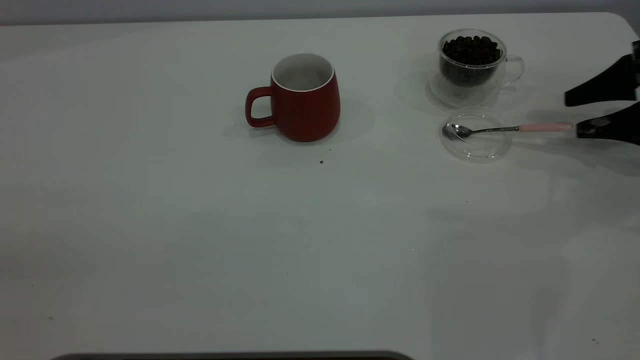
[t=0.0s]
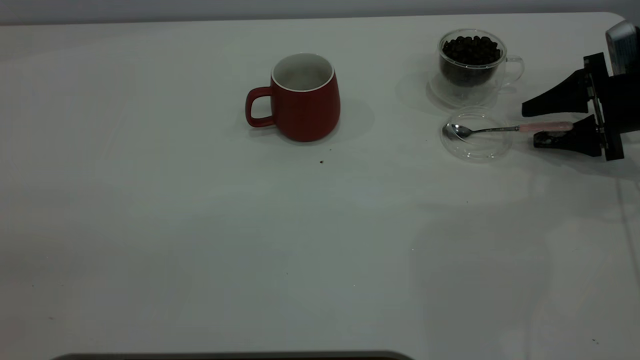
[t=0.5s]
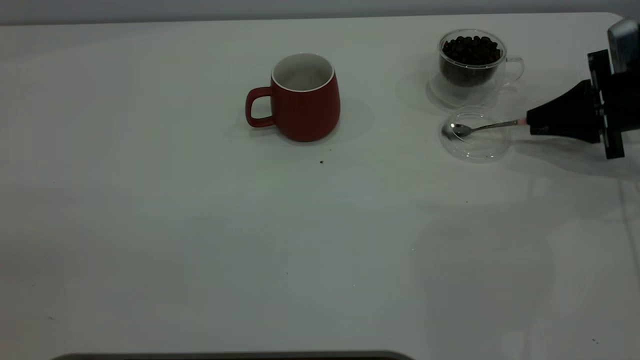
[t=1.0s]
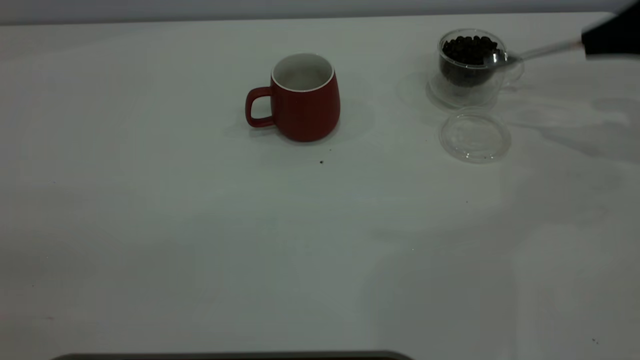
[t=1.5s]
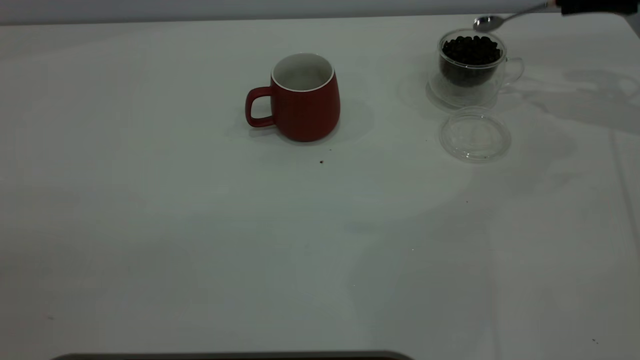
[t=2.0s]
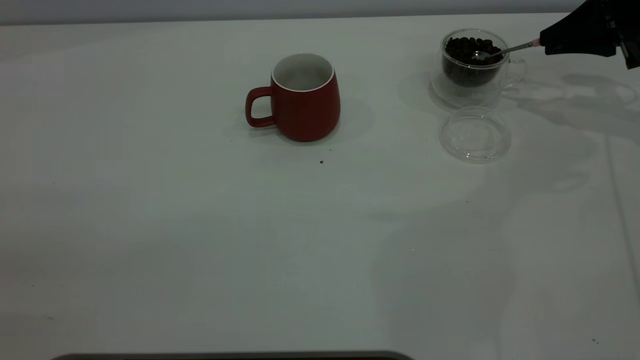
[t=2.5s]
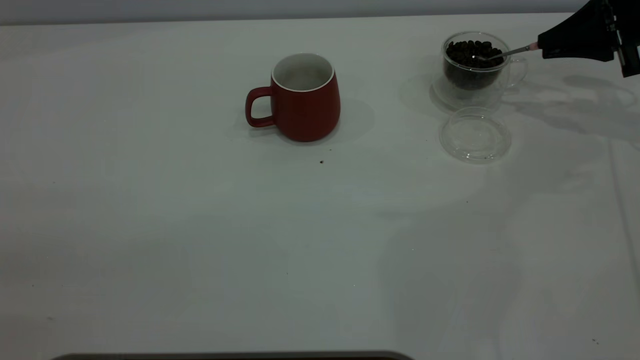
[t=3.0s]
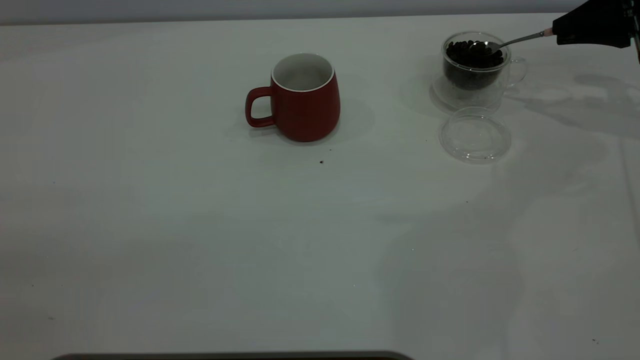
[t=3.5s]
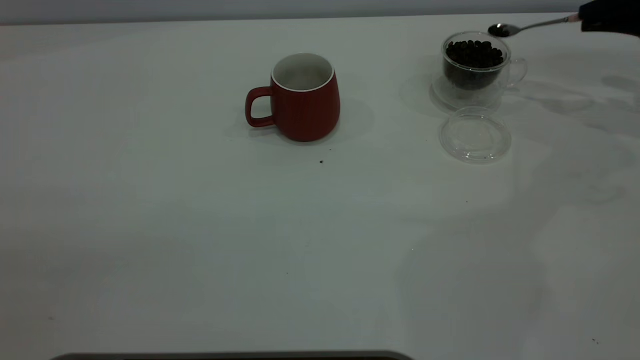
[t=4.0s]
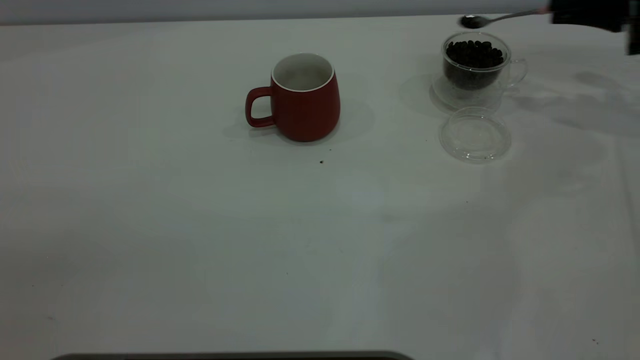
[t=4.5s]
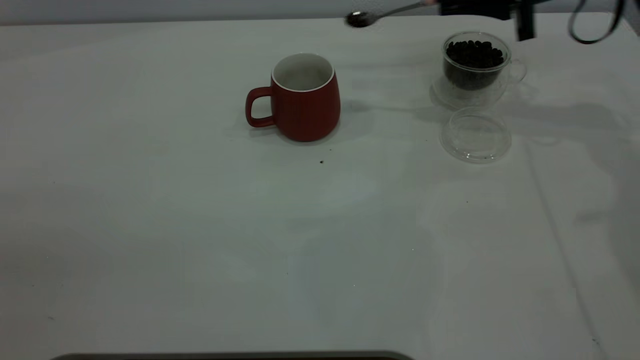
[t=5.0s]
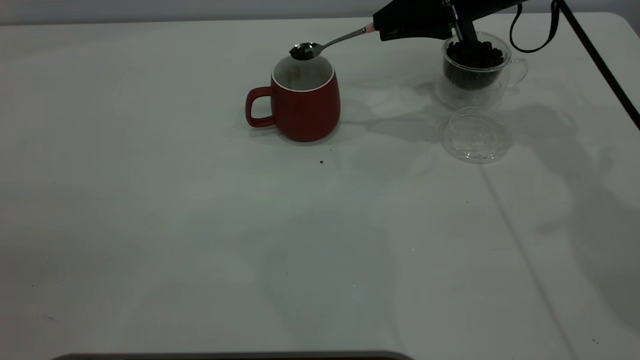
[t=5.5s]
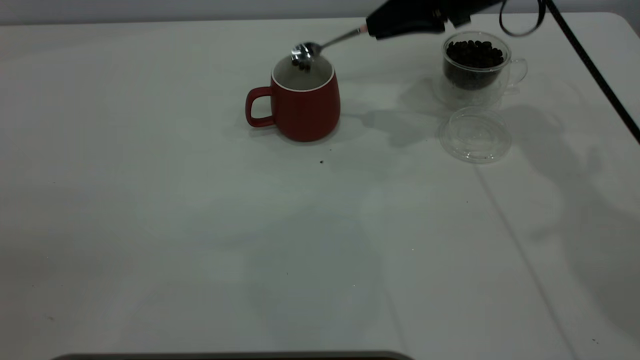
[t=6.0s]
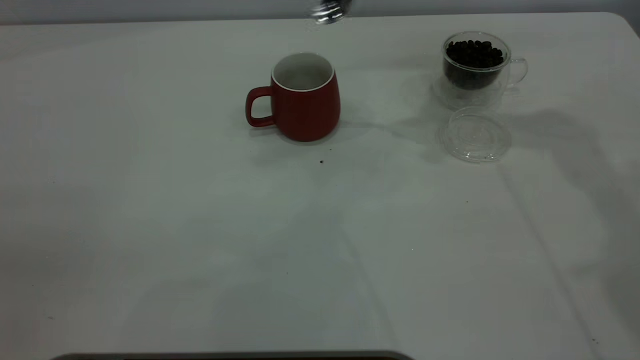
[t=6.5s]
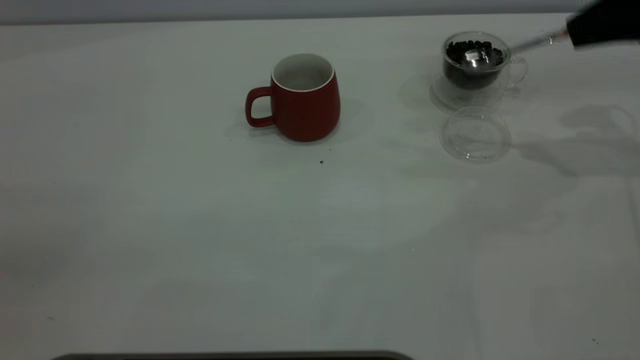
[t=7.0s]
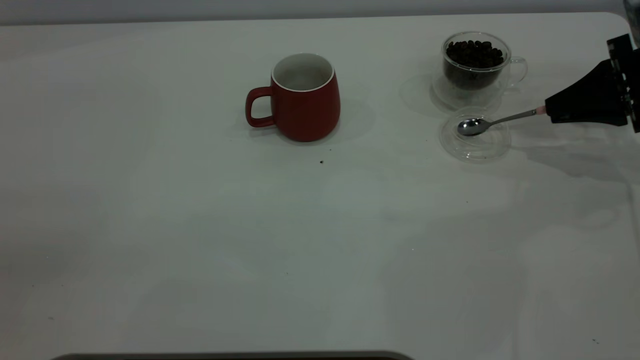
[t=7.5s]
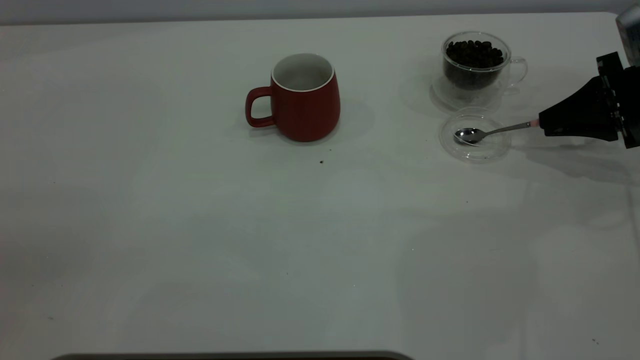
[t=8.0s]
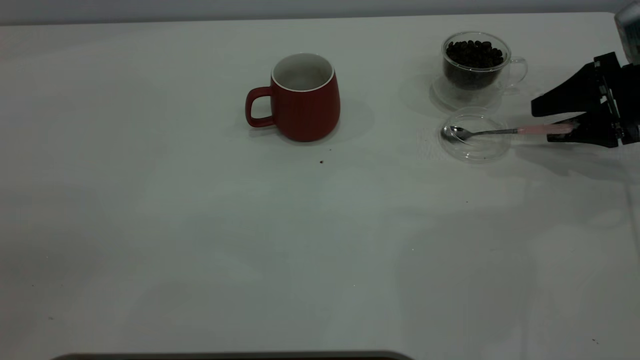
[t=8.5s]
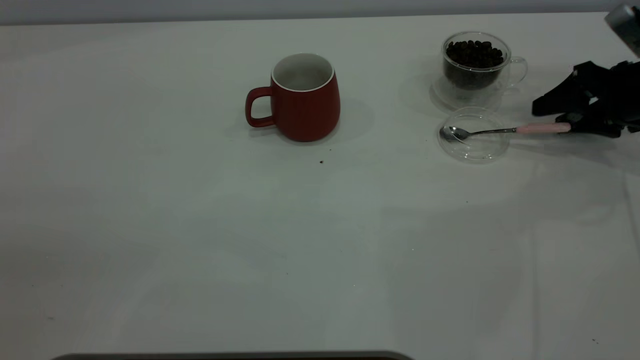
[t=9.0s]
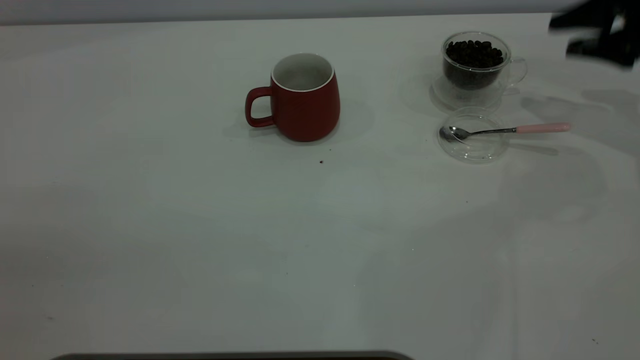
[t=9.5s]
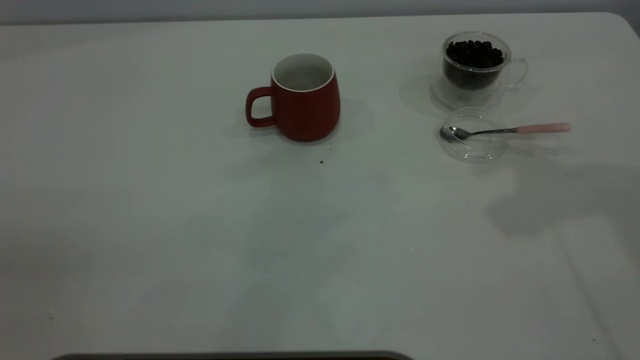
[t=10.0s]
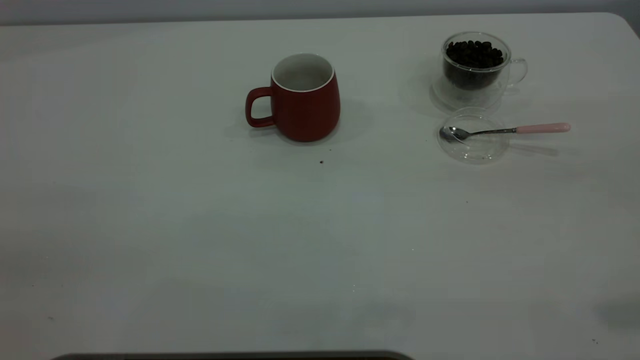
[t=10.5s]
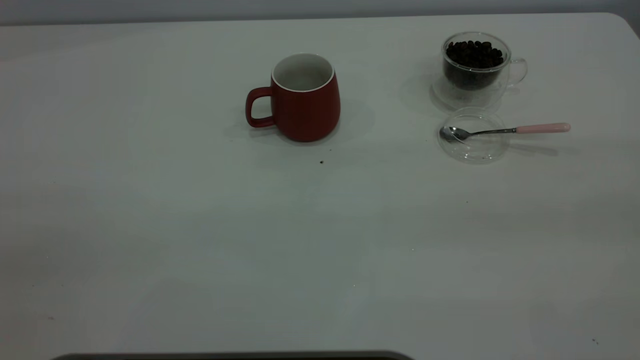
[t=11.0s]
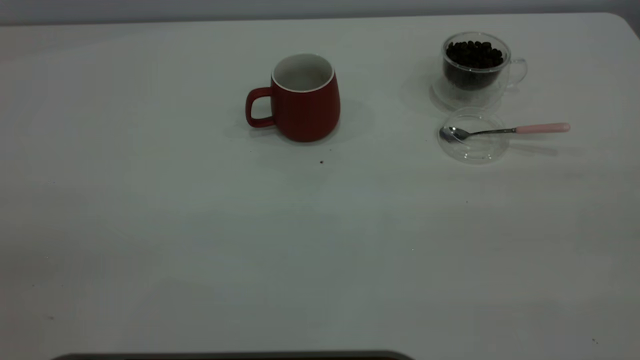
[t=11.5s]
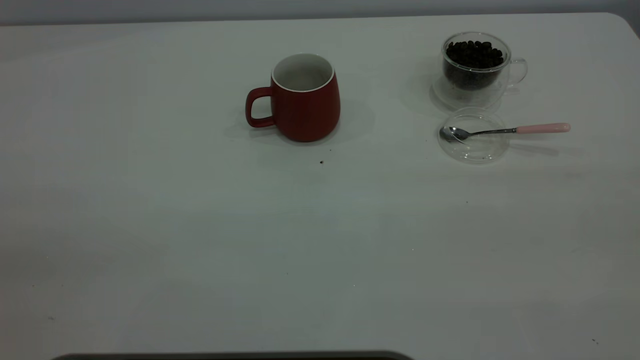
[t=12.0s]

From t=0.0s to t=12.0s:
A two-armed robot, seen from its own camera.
Task of the whole recording: the left gripper place the red cup in the center of the table, the right gripper take the pink spoon from the cup lid and scoop out the coffee beans from the coffee cup and put them into the red cup, the right gripper put the spoon back into the cup lid.
Step, from t=1.5s to t=6.0s: Scoop a spoonful of beans into the cup.
Step, from t=6.5s to t=9.0s: Place the spoon back in its original place.
From t=0.0s to t=2.0s: The right gripper goes roughly 10 cm upward and forward, and closes.
From t=2.0s to t=4.0s: The grippers move only a little.
From t=4.0s to t=6.0s: The right gripper moves to the left, about 25 cm.
From t=6.0s to t=8.0s: The right gripper is displaced to the right and downward by approximately 25 cm.
From t=8.0s to t=10.0s: The right gripper moves upward, some 30 cm, and opens its fingers.

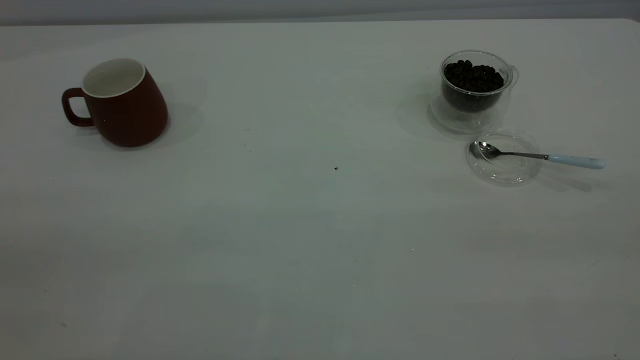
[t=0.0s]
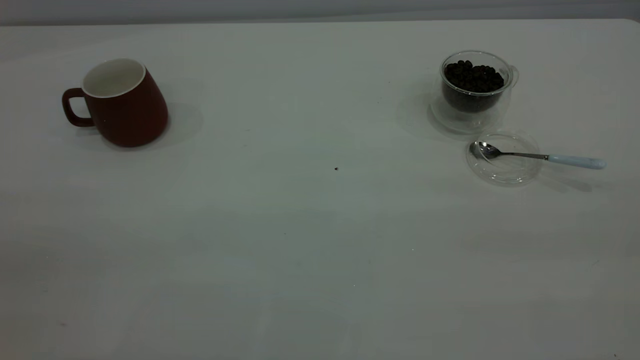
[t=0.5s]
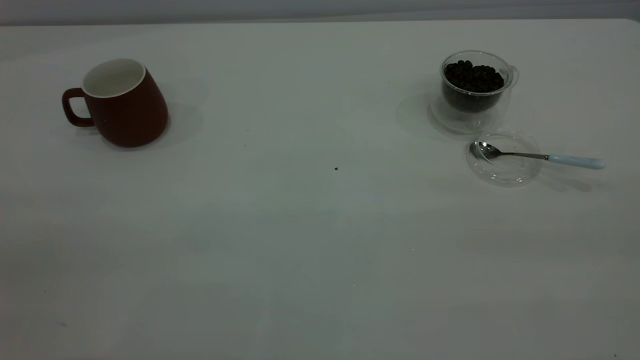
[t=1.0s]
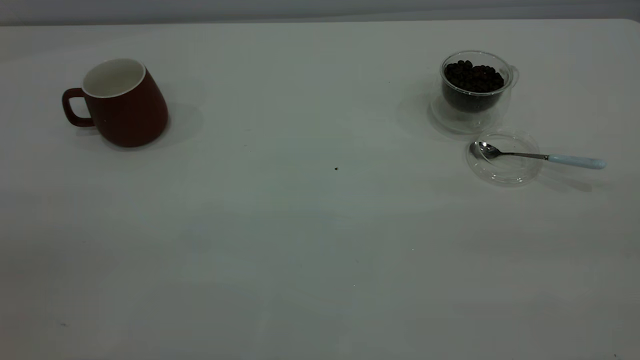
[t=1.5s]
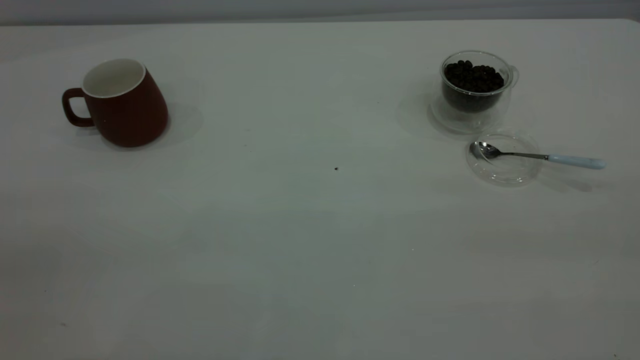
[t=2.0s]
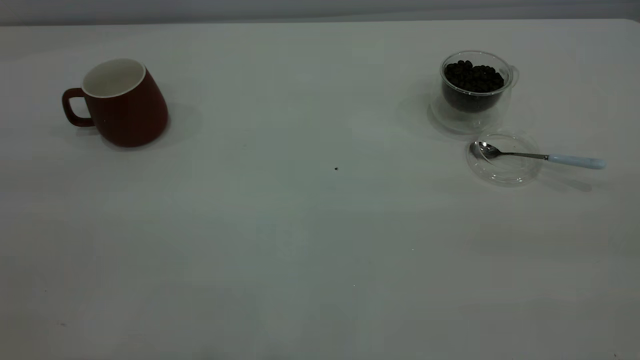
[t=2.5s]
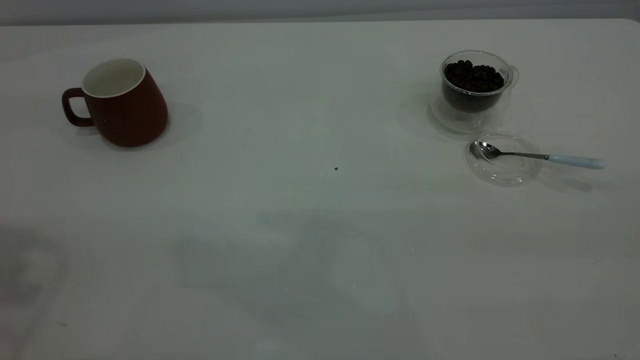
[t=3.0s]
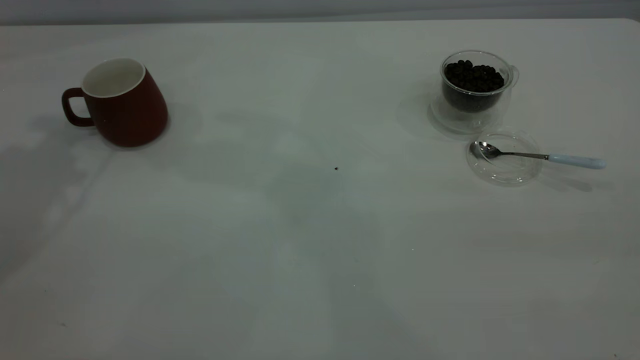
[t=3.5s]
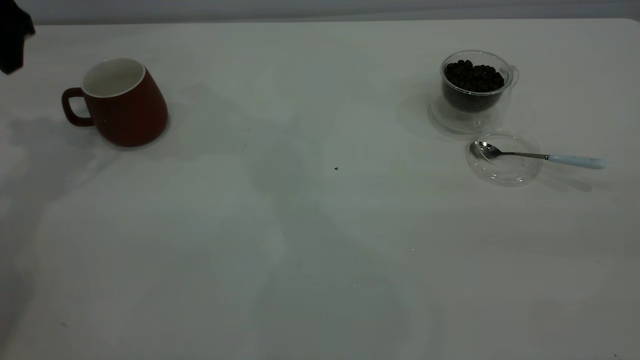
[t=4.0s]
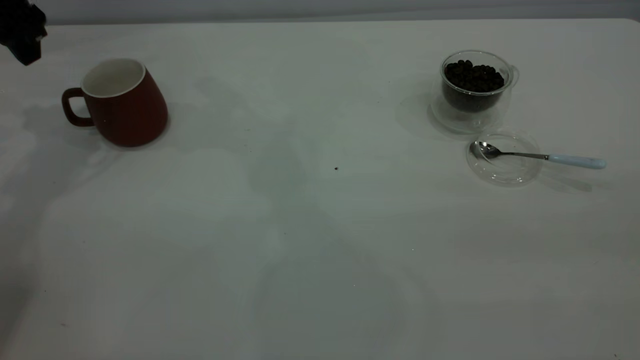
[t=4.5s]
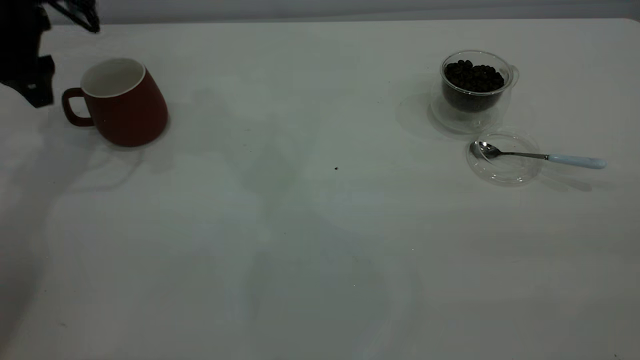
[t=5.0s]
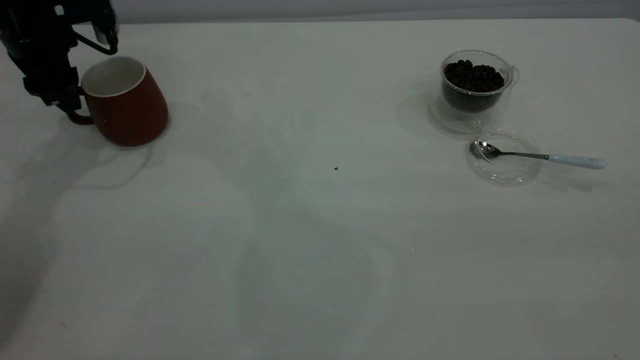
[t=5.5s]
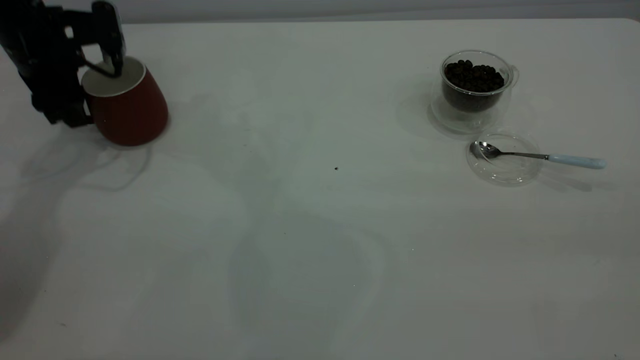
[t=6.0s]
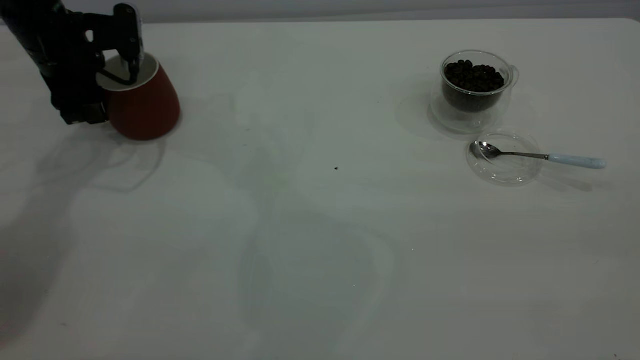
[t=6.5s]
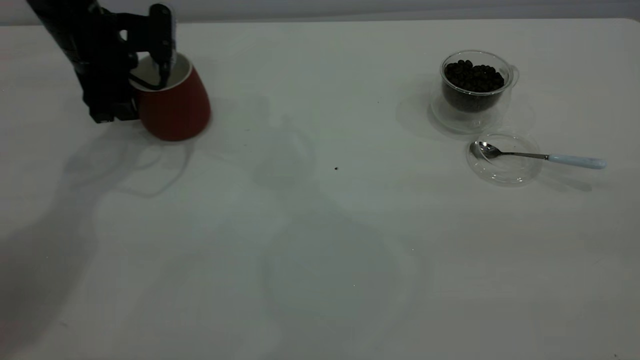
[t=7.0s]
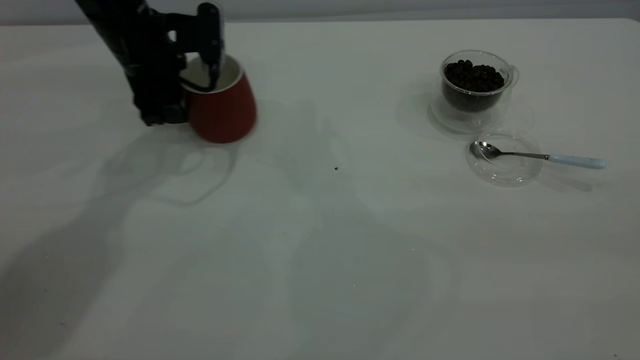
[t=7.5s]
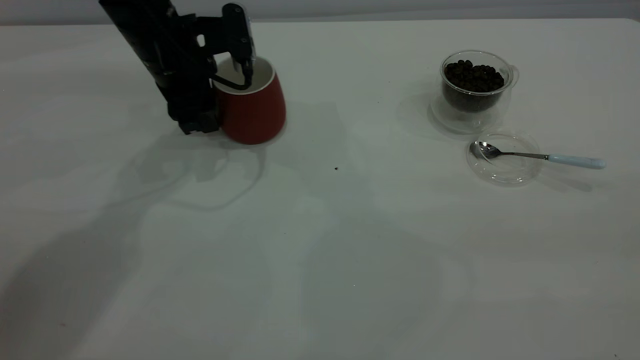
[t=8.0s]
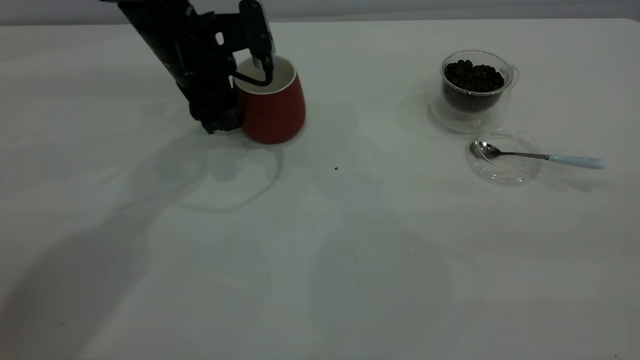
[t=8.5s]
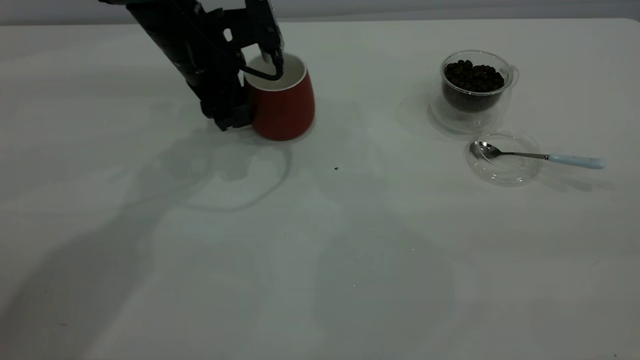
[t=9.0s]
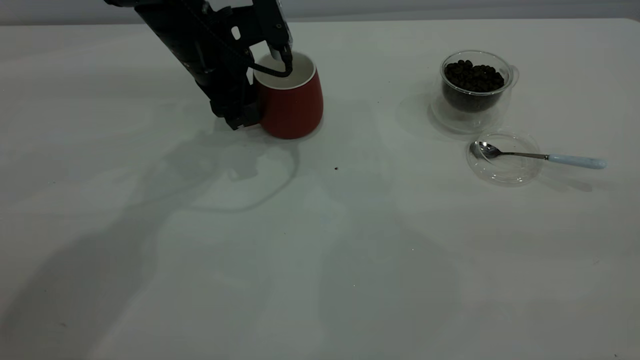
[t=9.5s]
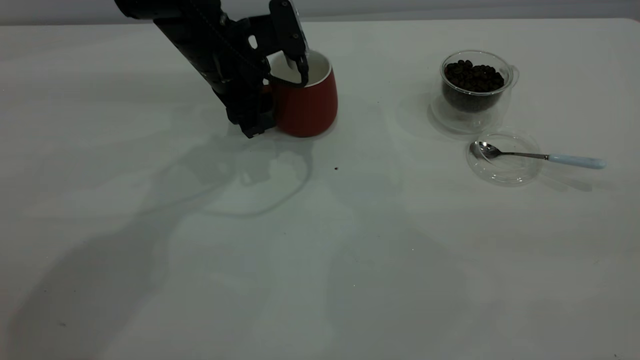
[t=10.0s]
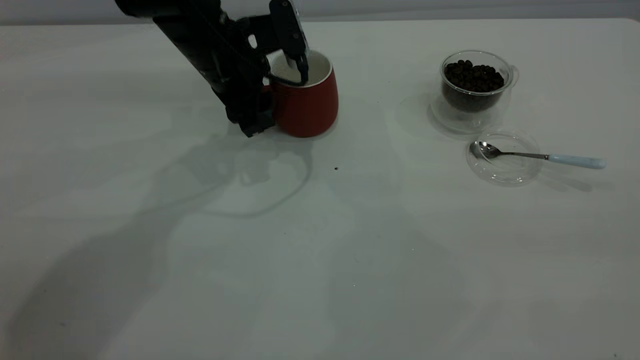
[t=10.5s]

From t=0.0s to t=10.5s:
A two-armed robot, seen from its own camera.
Task of the whole recording: the left gripper place the red cup in the center of the table, the right gripper take the blue spoon from the cup lid and scoop out the coffee beans from the coffee cup and put them into the red cup, the right gripper put the spoon back into the cup lid.
From t=0.0s to t=2.0s: The two grippers keep their place.
From t=2.0s to t=4.0s: The left gripper moves forward, roughly 40 cm.
From t=4.0s to t=6.5s: The left gripper heads downward, covering some 10 cm, and closes its fingers.
From t=6.5s to t=8.5s: The left gripper shifts approximately 15 cm to the right.
From t=8.5s to t=10.5s: There are only small adjustments of the grippers.
